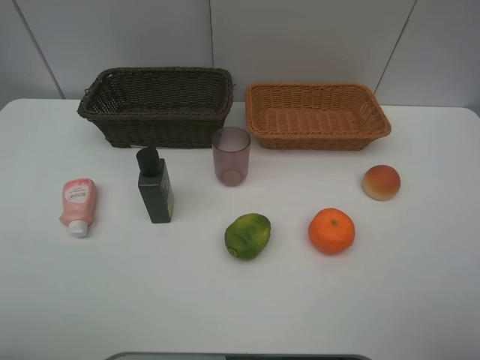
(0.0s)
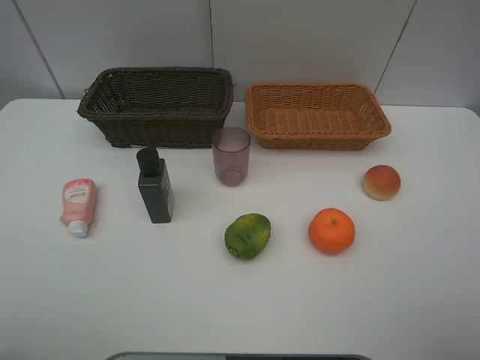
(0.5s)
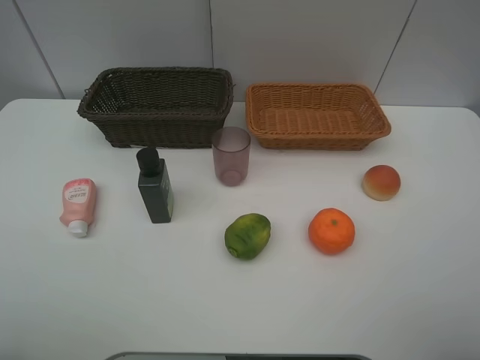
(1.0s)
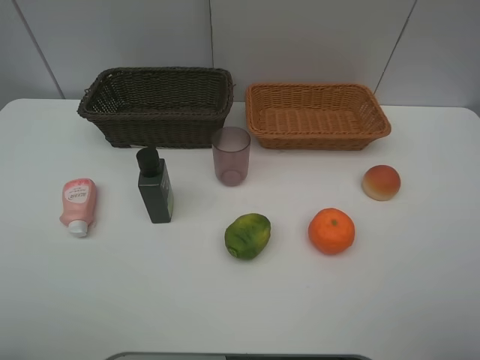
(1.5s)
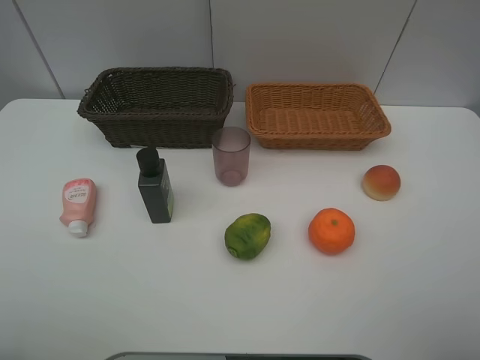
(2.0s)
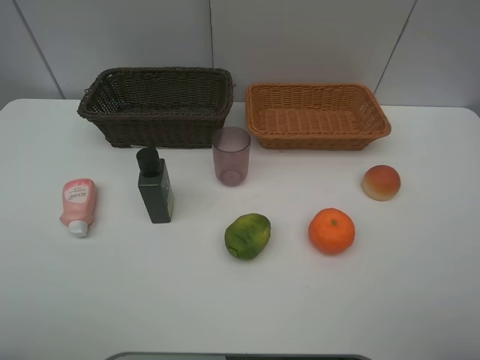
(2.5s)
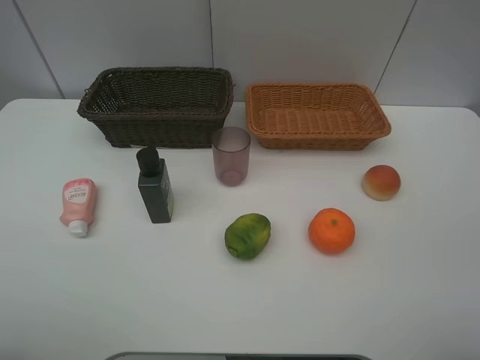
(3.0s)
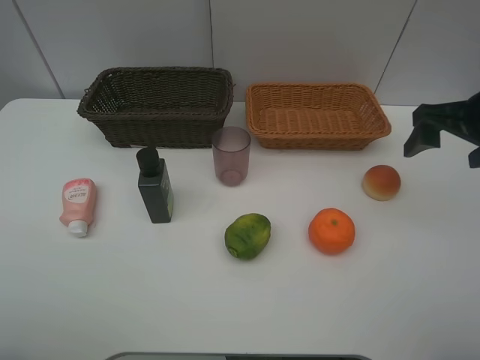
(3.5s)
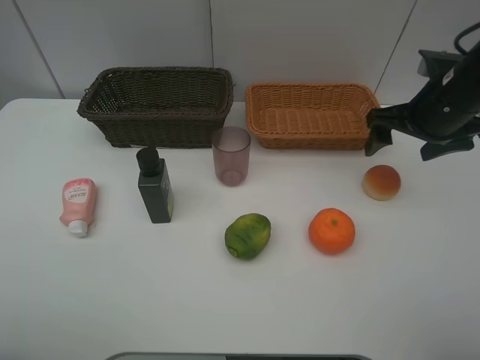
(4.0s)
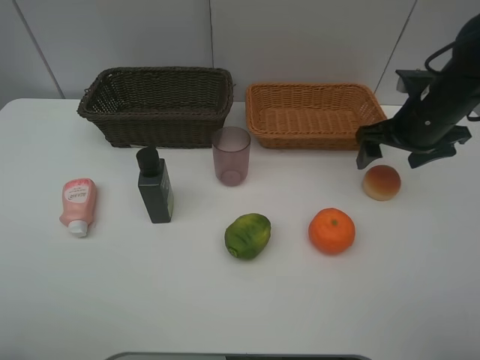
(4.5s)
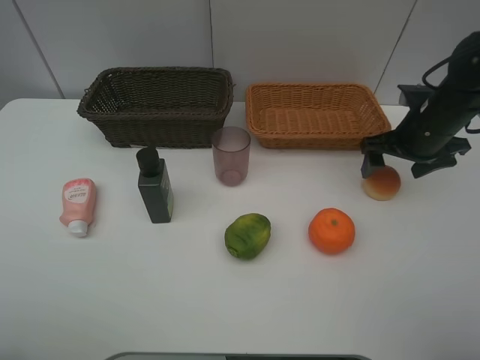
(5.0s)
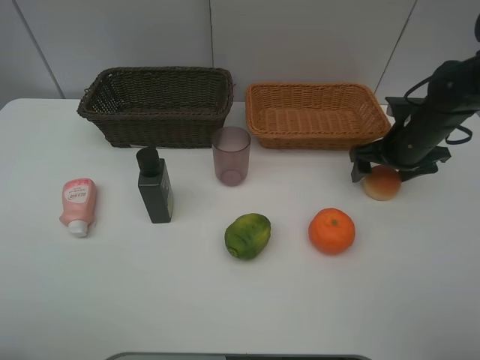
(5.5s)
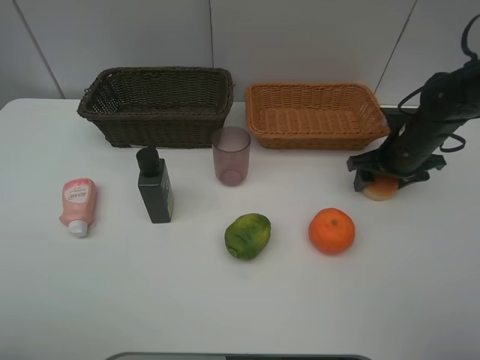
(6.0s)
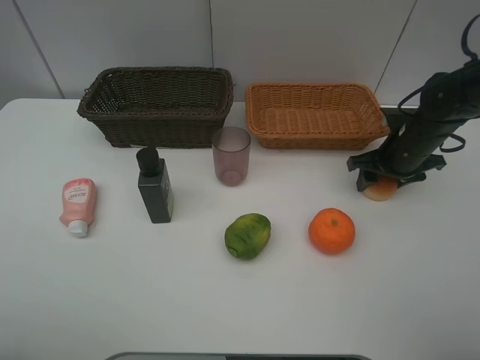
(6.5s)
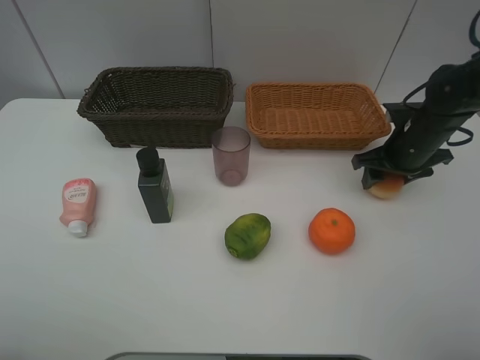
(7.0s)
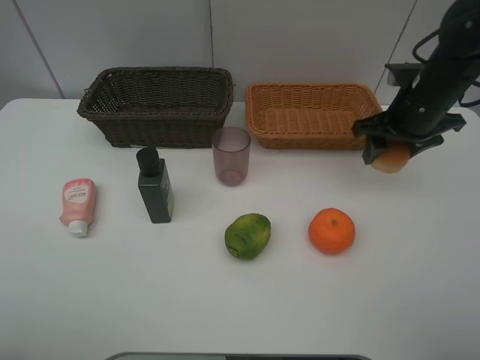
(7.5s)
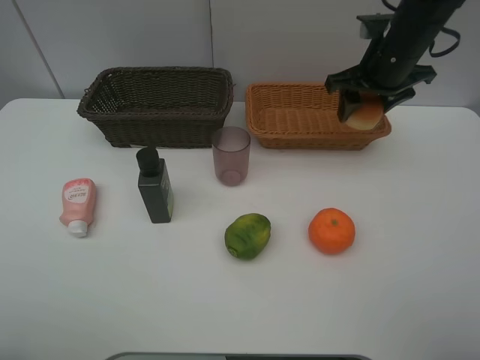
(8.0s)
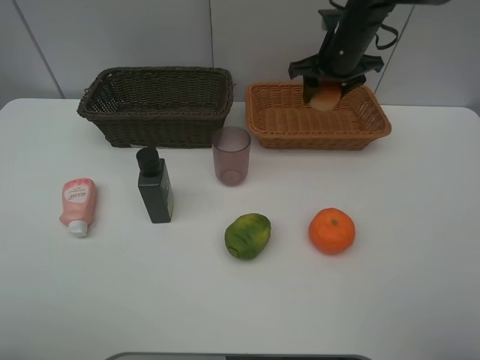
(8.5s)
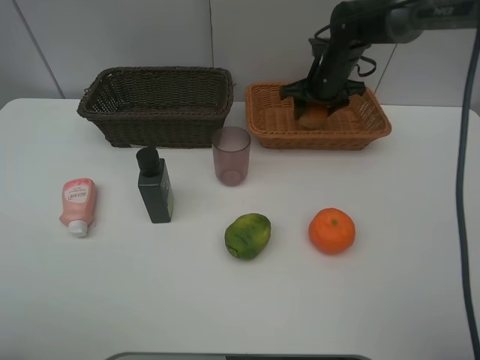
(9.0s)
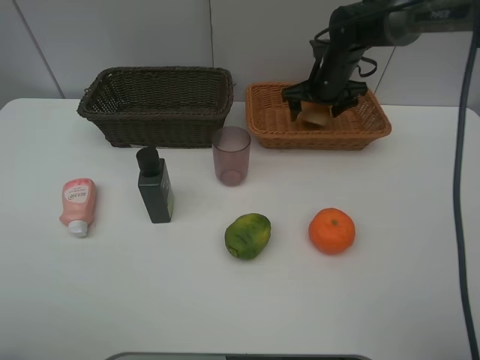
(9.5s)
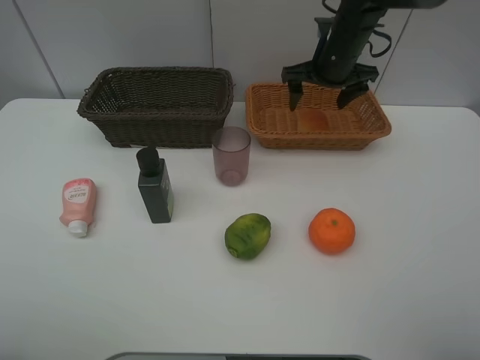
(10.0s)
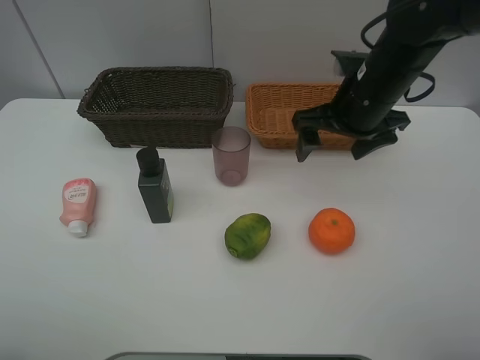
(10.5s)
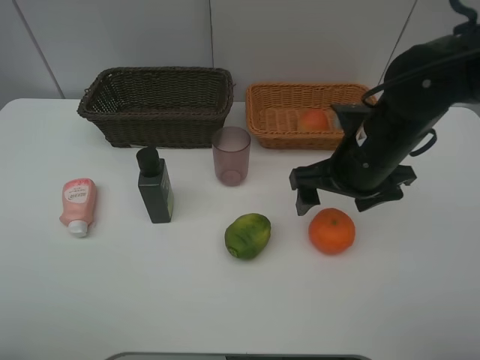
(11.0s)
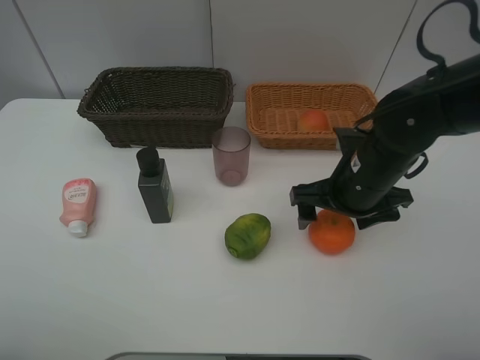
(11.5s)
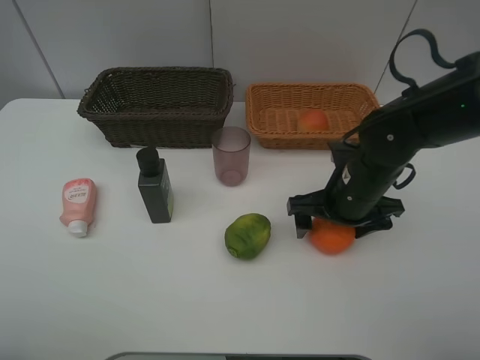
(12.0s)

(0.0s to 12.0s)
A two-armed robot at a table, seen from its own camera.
Task of the whole recording: place multiple objects separately in different baskets.
0.0s - 2.0s: Both grippers stay put.
2.0s - 4.0s: The right gripper heads forward, covering roughly 30 cm.
4.0s - 6.0s: The right gripper is displaced downward by some 10 cm, and closes its fingers.
6.0s - 8.0s: The right gripper goes some 15 cm upward and to the left.
8.0s - 10.0s: The right gripper moves forward and to the left, roughly 10 cm, and opens its fingers.
10.0s - 12.0s: The right gripper heads backward and downward, covering about 20 cm.

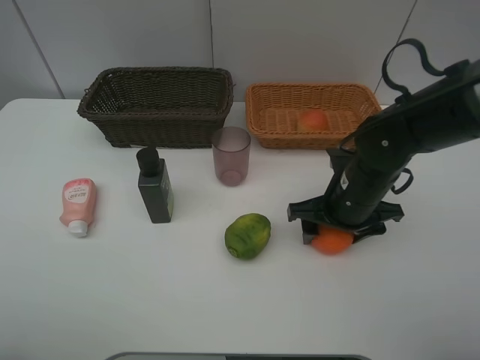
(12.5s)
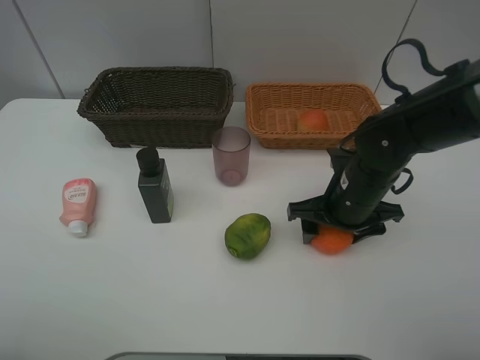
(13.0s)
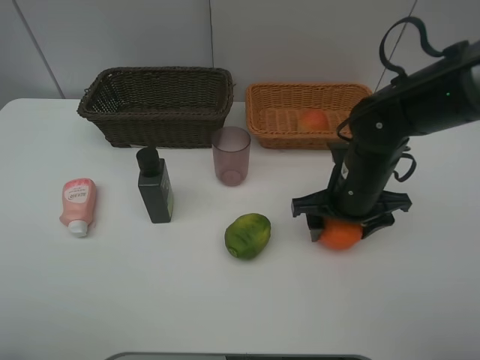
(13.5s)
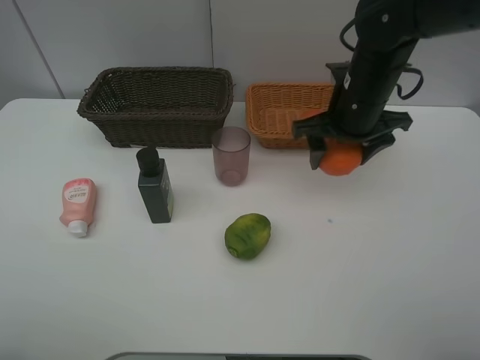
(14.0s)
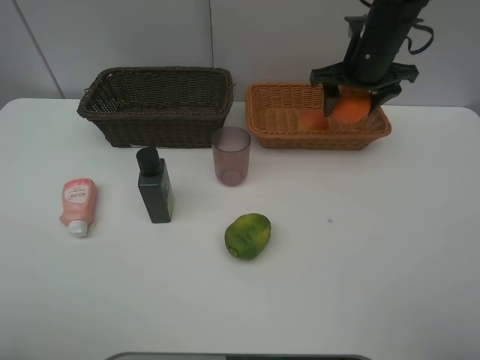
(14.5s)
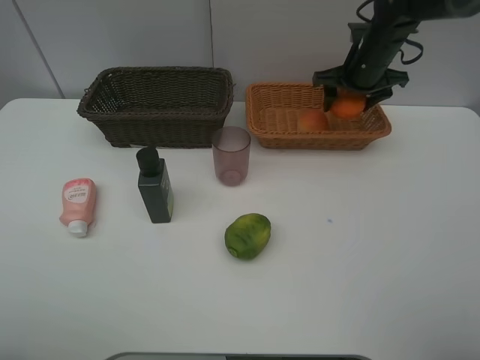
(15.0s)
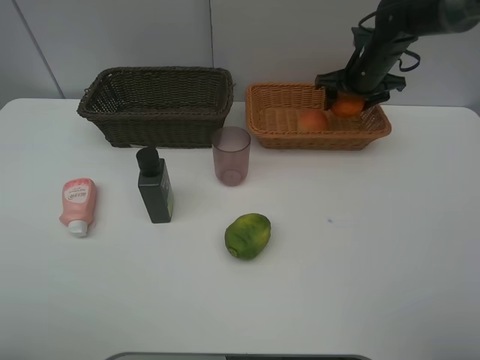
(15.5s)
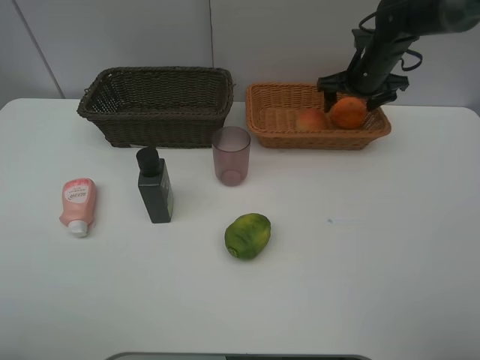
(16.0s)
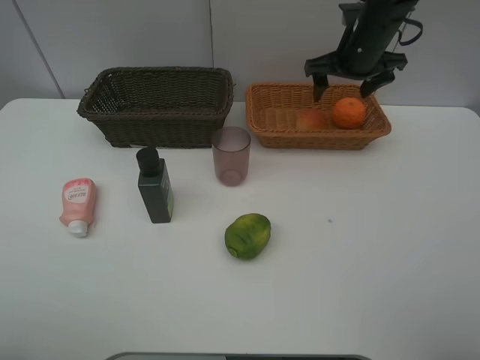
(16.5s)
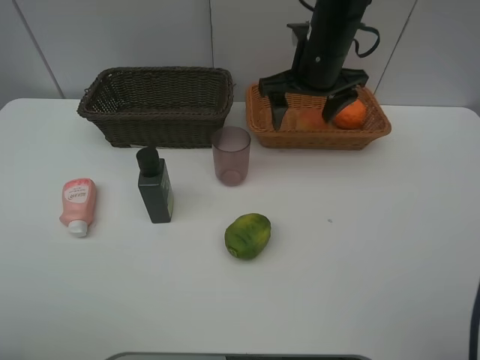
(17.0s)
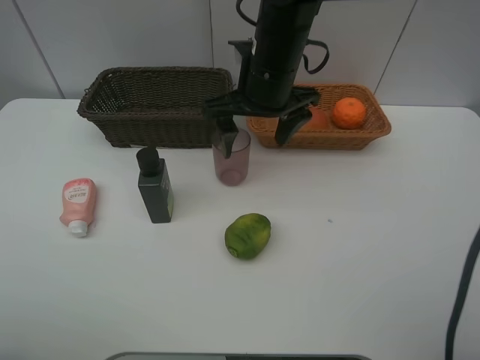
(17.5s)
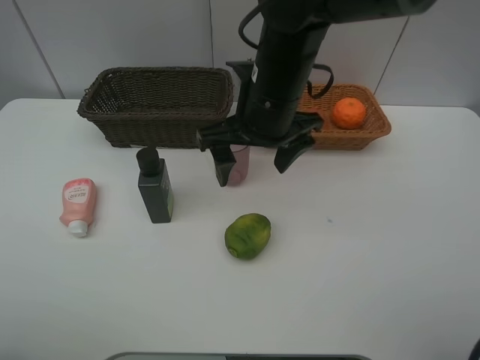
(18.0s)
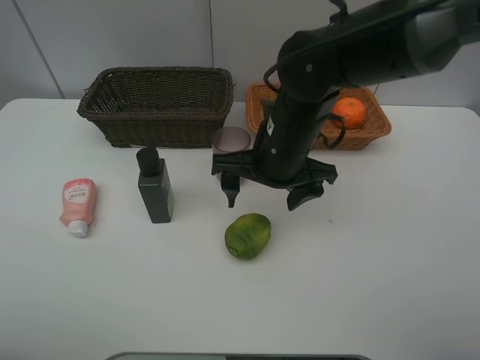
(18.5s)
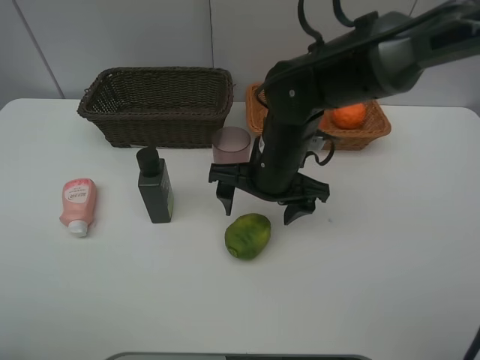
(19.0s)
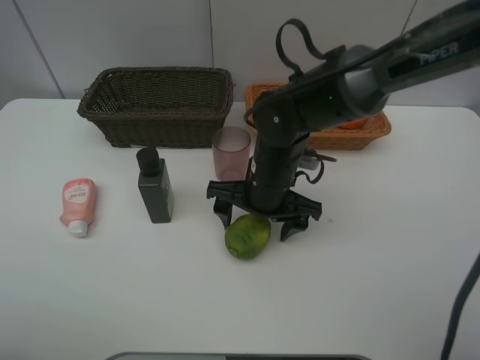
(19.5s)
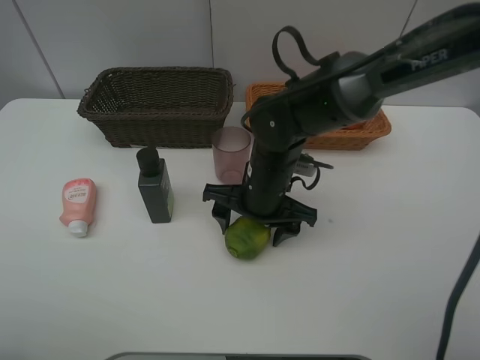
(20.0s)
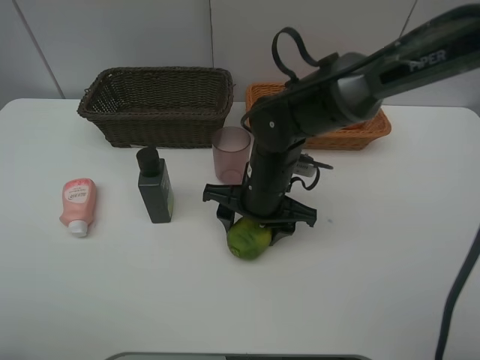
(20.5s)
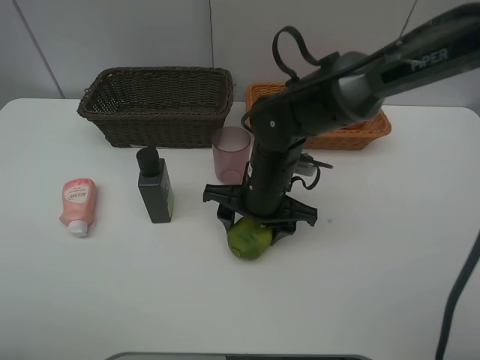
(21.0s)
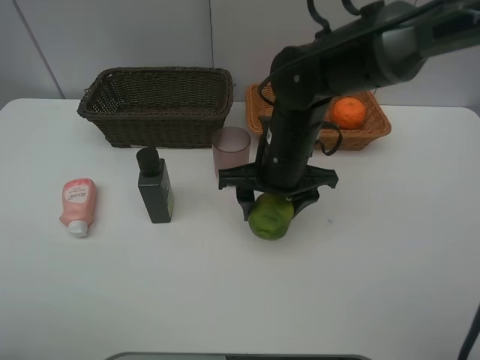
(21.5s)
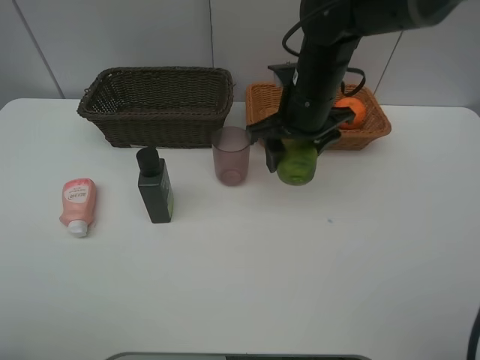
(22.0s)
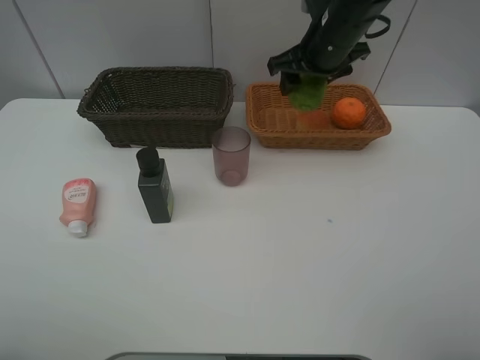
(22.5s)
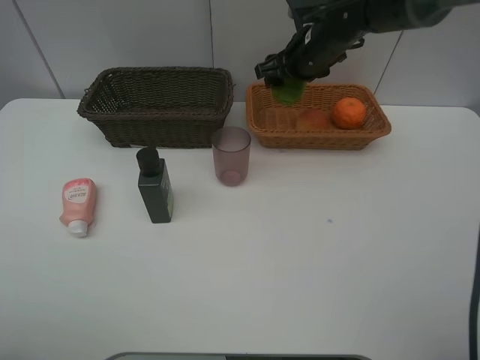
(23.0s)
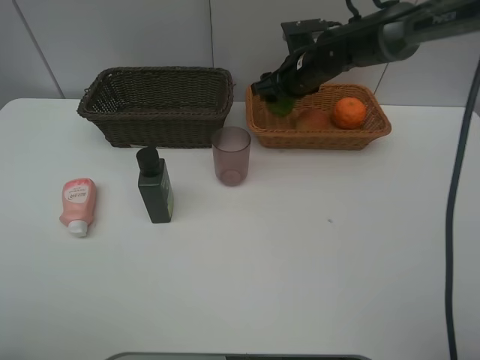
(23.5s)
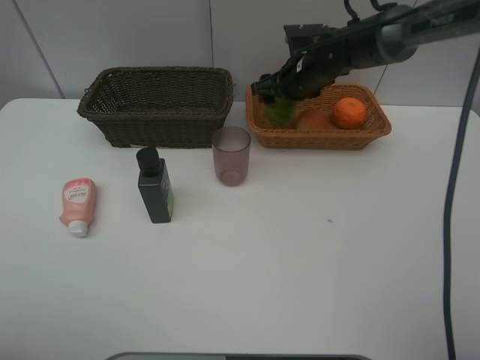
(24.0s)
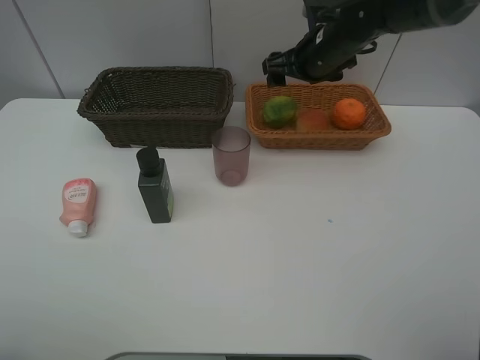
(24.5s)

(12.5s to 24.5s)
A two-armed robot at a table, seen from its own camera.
Task of the whole recording: place multiple objects separately in different baskets.
12.5s - 14.5s: The right gripper heads forward and upward, covering some 20 cm.
14.5s - 16.5s: The right gripper opens.
16.5s - 18.5s: The right gripper is displaced backward and to the left by about 20 cm.
18.5s - 20.5s: The right gripper is displaced downward by roughly 5 cm, and closes.
20.5s - 22.5s: The right gripper shifts some 20 cm forward, upward and to the right.
22.5s - 24.5s: The right gripper goes downward and returns, some 10 cm each way, and opens.

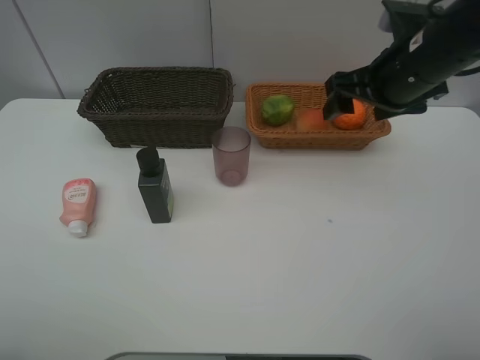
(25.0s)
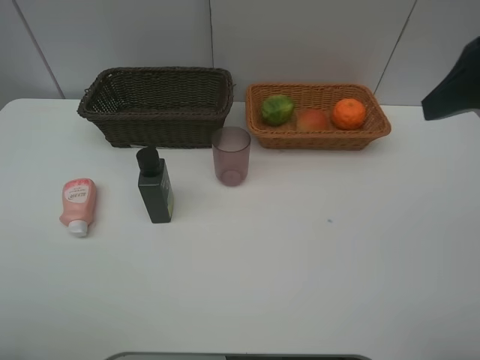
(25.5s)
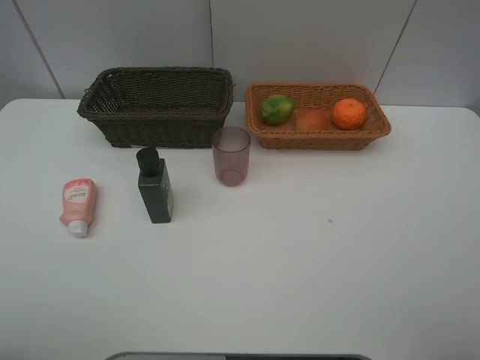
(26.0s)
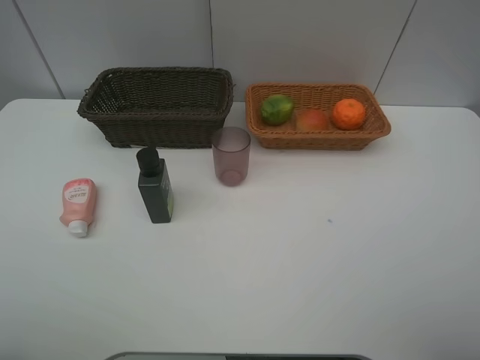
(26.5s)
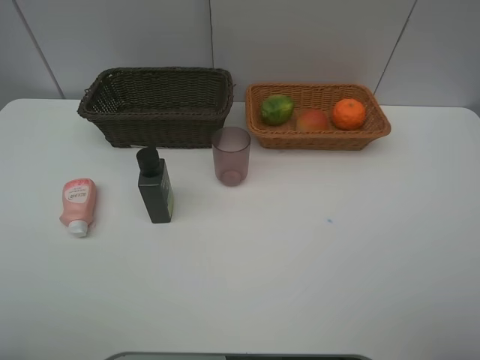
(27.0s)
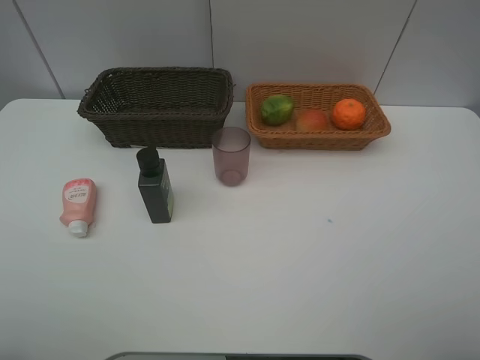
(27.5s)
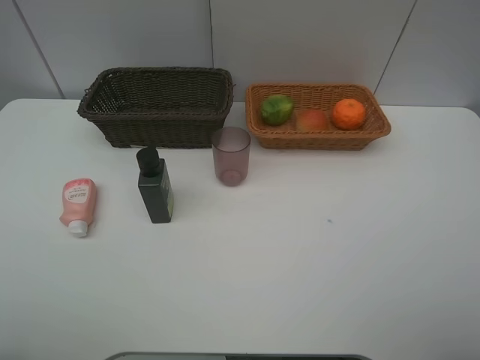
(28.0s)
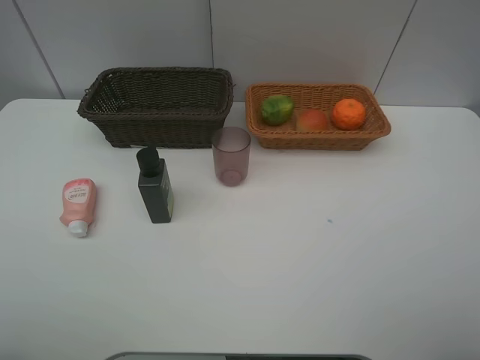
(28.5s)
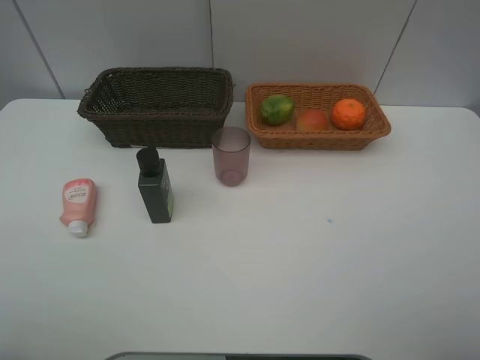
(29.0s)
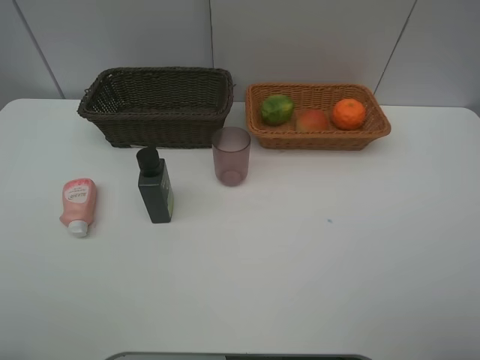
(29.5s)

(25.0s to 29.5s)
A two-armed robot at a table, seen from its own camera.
Task of the whole recording: place multiple objects separately in different baskets.
25.0s - 27.0s: The right gripper shifts some 30 cm backward.
